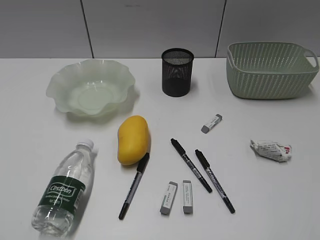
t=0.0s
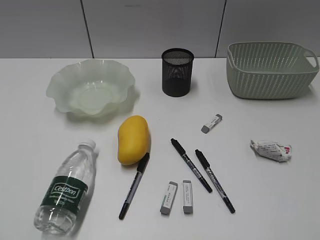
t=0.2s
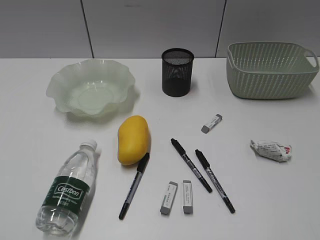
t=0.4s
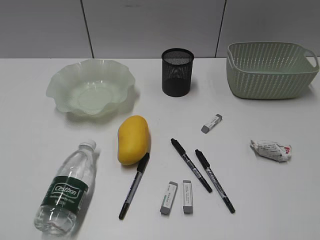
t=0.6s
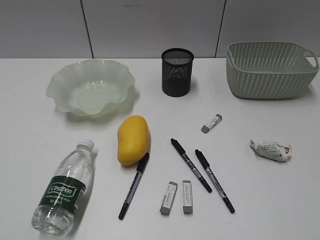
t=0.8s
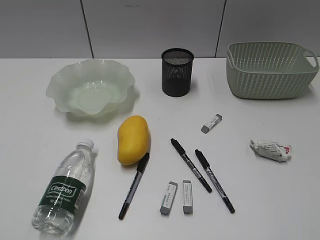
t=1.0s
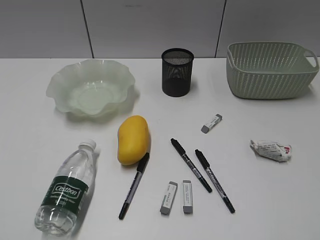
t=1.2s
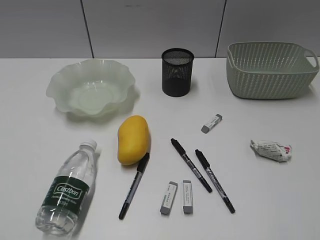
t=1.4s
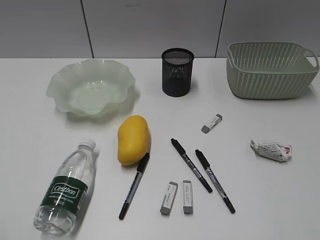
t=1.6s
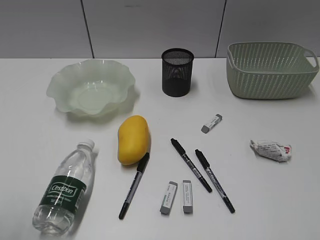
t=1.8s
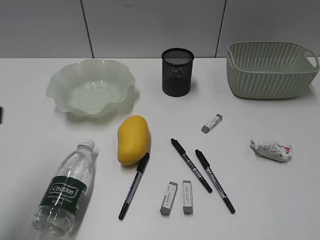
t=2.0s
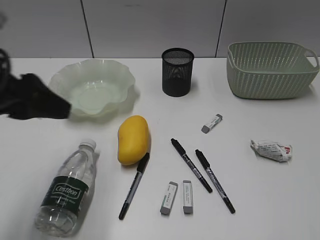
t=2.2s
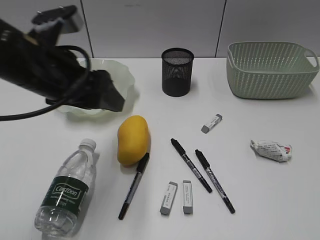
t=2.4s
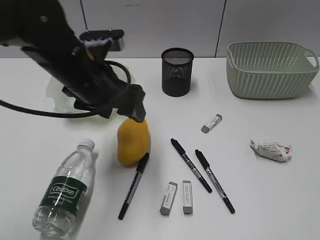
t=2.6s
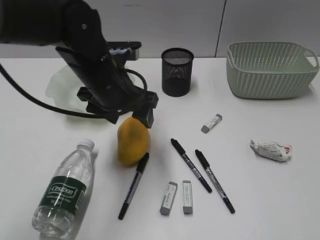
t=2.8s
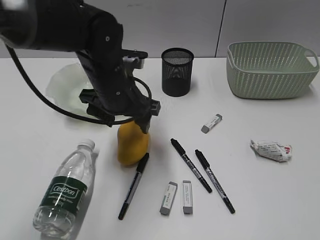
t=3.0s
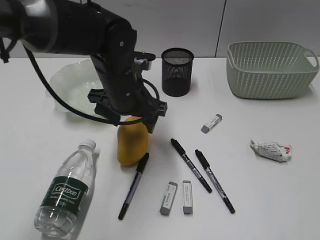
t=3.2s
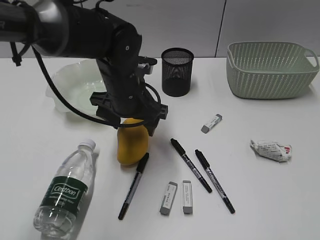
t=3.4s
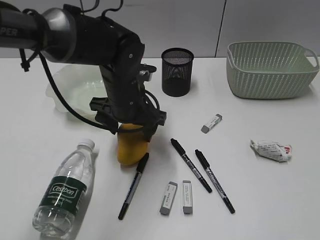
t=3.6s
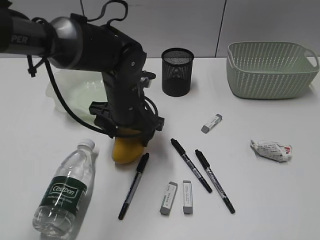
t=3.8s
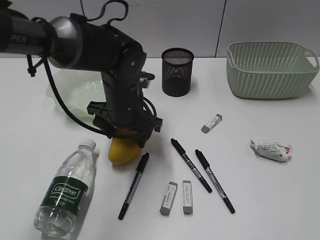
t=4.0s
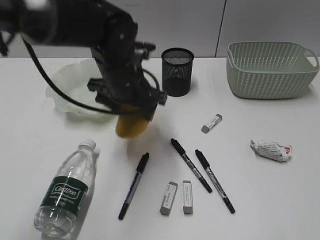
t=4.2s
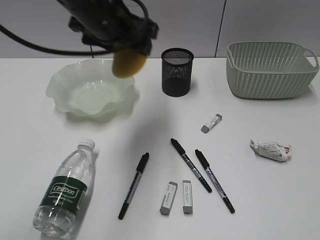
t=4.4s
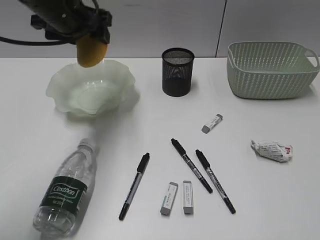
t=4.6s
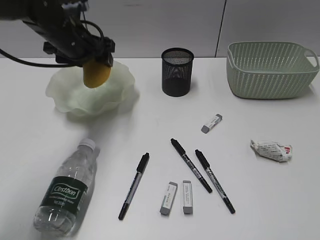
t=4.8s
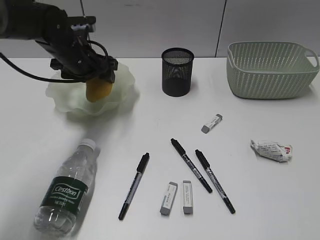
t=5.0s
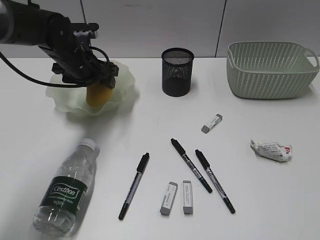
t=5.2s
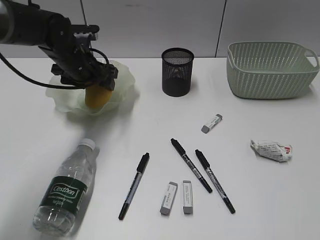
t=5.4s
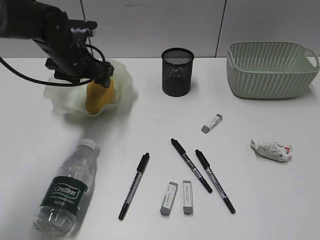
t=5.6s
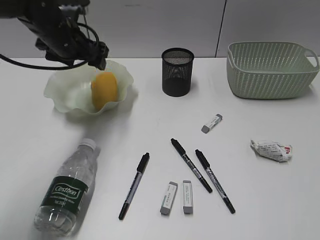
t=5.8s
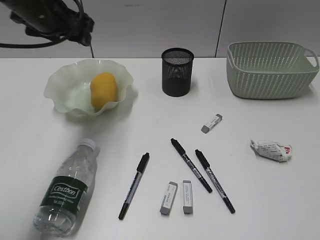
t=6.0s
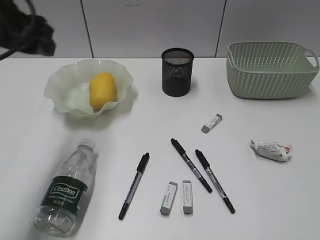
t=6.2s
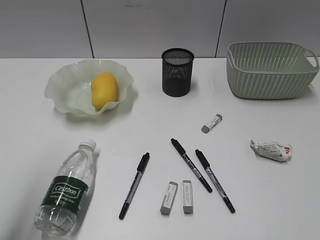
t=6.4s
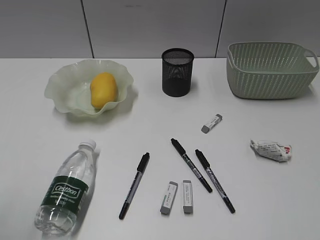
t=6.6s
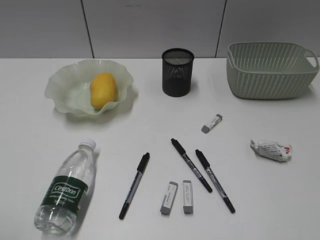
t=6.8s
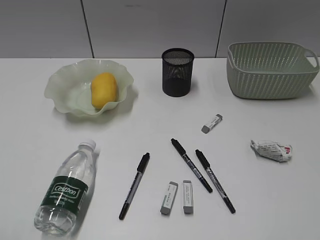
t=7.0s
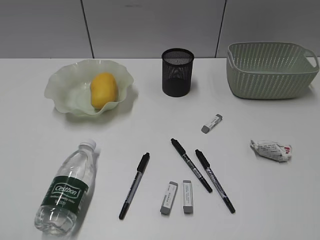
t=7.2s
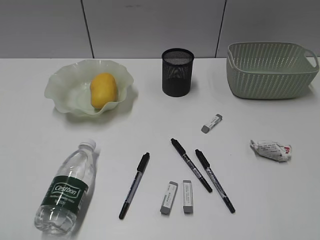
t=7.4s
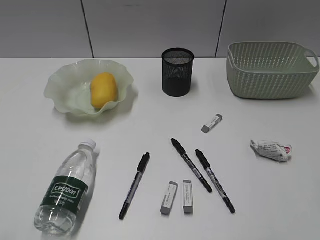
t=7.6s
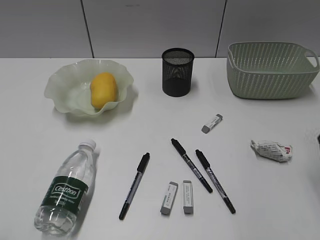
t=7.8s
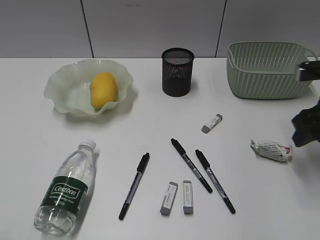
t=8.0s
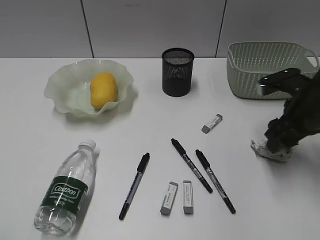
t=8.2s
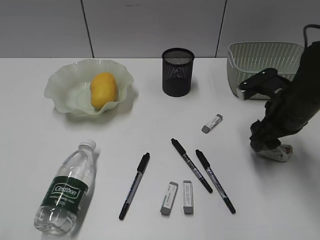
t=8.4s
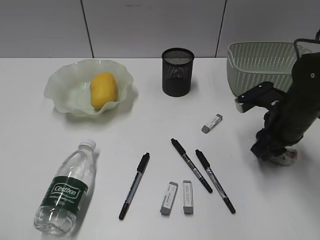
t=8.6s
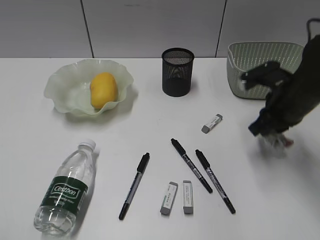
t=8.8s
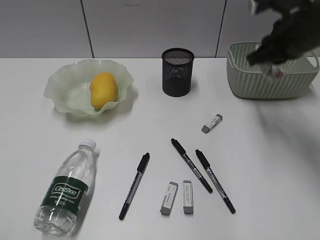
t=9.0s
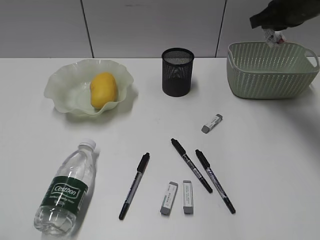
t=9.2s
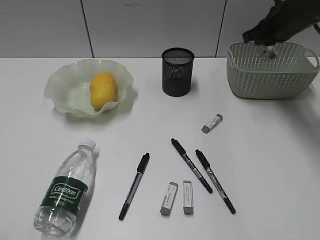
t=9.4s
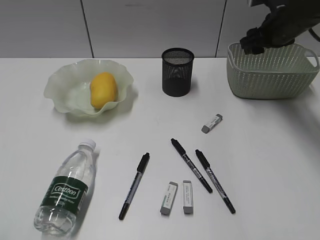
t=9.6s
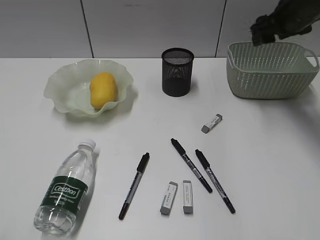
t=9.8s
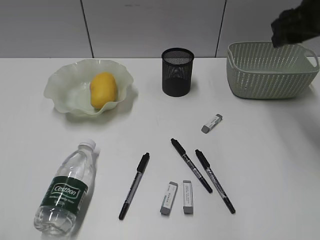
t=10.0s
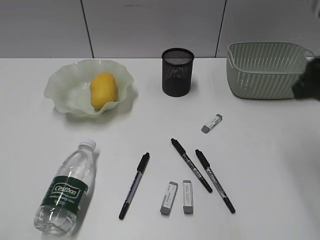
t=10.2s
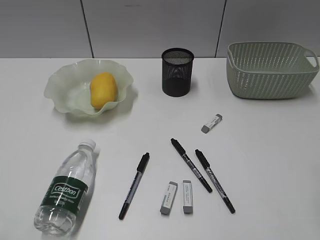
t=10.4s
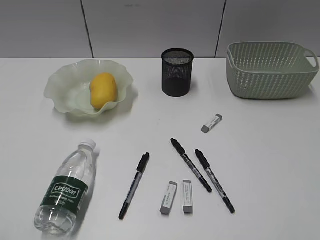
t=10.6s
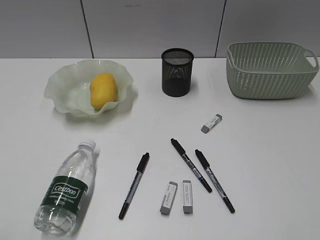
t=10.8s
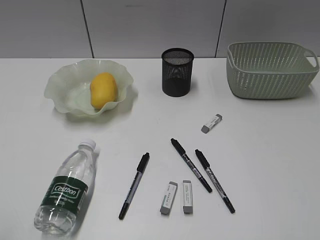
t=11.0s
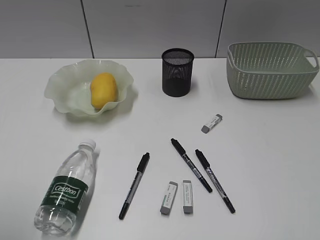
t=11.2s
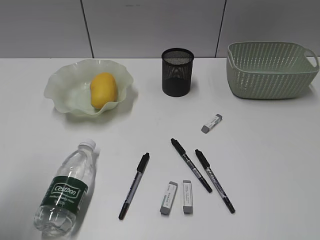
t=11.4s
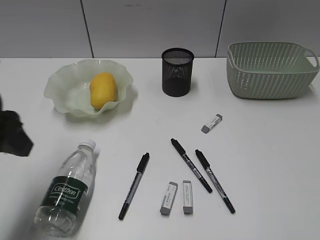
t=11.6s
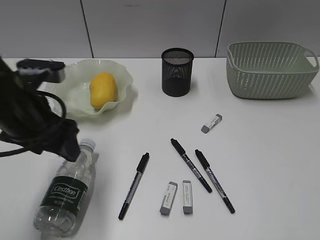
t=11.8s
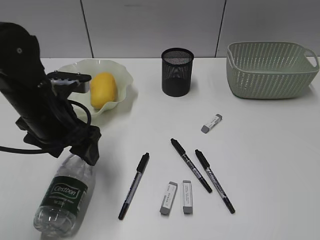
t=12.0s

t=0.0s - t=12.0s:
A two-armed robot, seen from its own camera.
Step, t=1.6s - t=3.8s: Grasp the mango with left gripper.
Step, t=4.0s - t=5.8s: Place the mango in the plate with left gripper.
Step, t=6.0s - t=8.6s: Grasp the waste paper with right gripper.
Step, t=8.8s - t=9.6s: Place the waste paper in the basket with right gripper.
t=1.6s - t=3.0s: The left gripper heads forward and to the right, covering about 40 cm, and opens.
t=3.0s - t=4.4s: The left gripper shifts roughly 10 cm upward.
t=4.4s - t=6.0s: The left gripper moves to the left, about 10 cm, and travels downward and back again, about 15 cm each way.
t=6.0s - t=7.6s: The right gripper heads forward, covering about 15 cm. Meanwhile the left gripper heads backward, covering approximately 40 cm.
t=7.6s - t=9.0s: The right gripper heads forward, covering roughly 20 cm, and closes its fingers.
t=9.0s - t=10.4s: The right gripper travels backward by about 20 cm, and opens up.
t=10.4s - t=12.0s: The left gripper is displaced forward and to the right by approximately 35 cm, and opens, while the right gripper heads backward, covering roughly 15 cm.

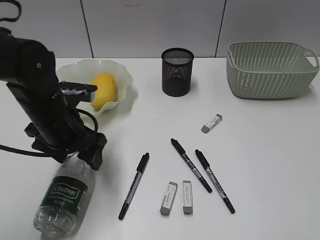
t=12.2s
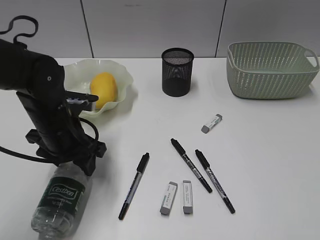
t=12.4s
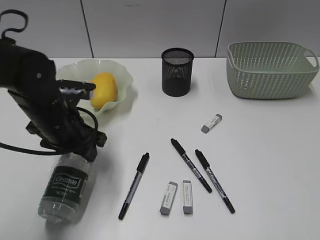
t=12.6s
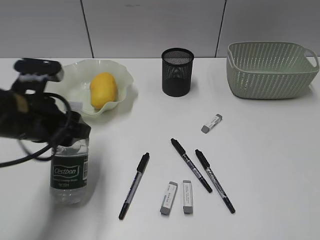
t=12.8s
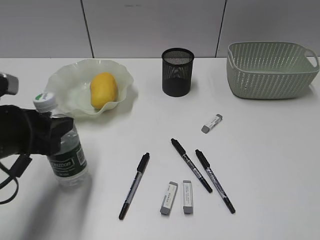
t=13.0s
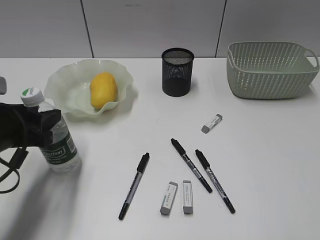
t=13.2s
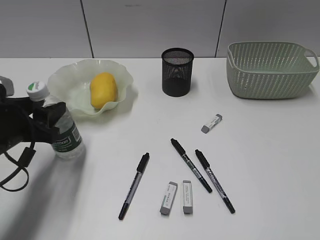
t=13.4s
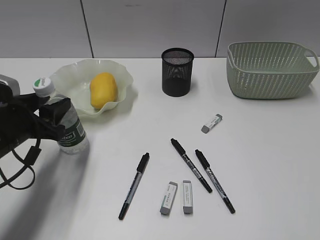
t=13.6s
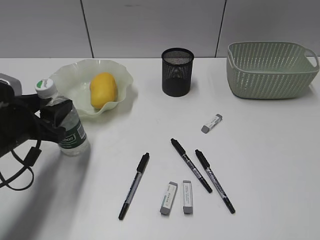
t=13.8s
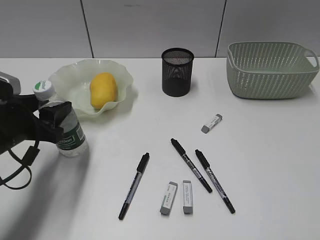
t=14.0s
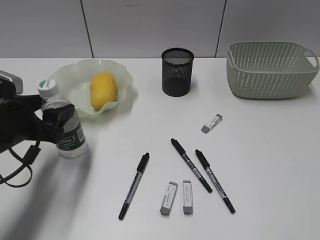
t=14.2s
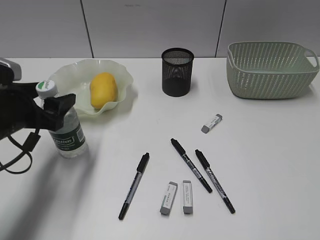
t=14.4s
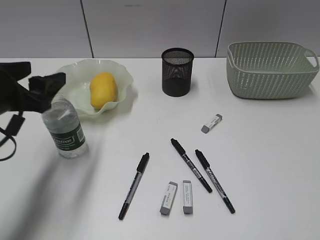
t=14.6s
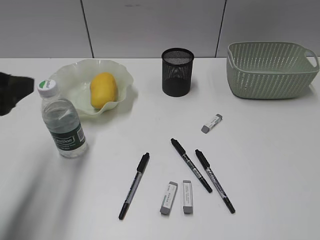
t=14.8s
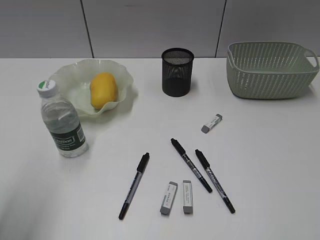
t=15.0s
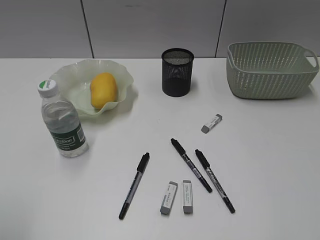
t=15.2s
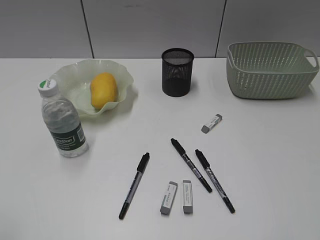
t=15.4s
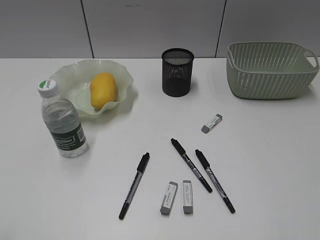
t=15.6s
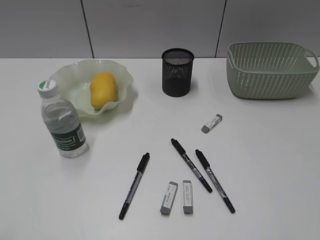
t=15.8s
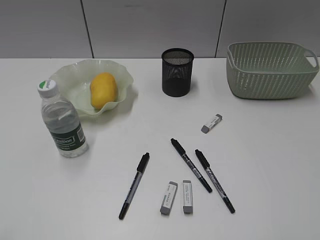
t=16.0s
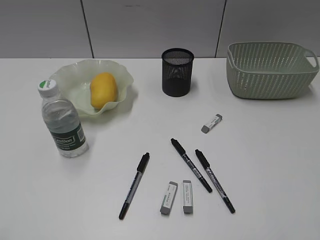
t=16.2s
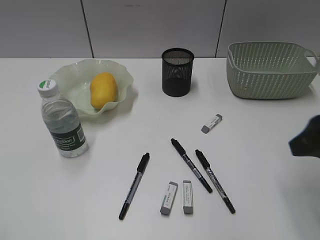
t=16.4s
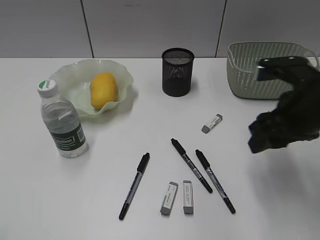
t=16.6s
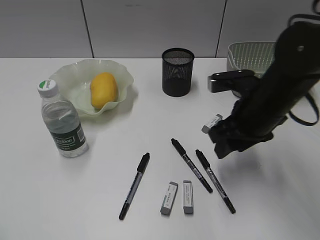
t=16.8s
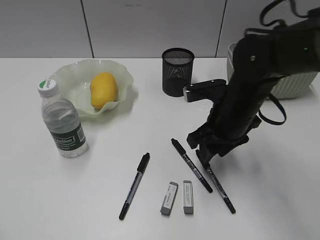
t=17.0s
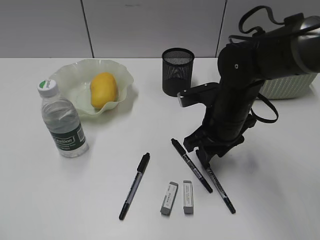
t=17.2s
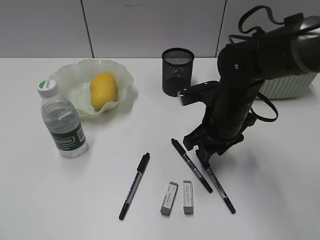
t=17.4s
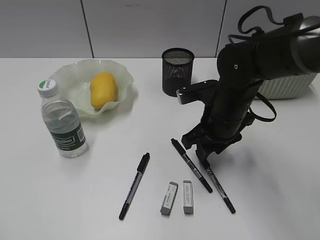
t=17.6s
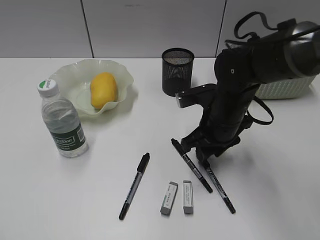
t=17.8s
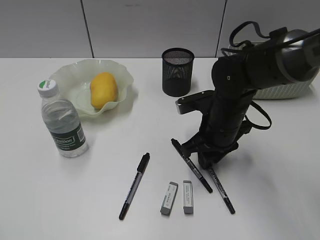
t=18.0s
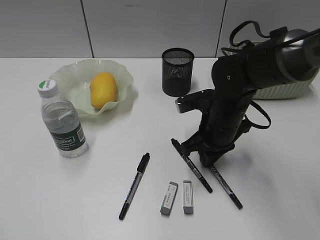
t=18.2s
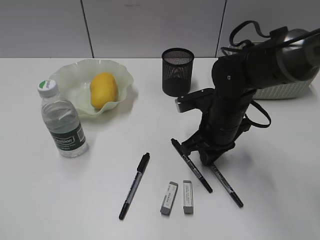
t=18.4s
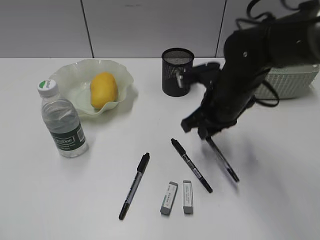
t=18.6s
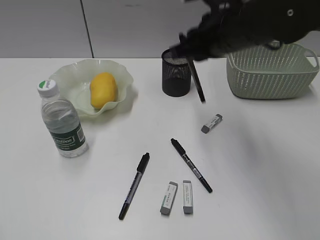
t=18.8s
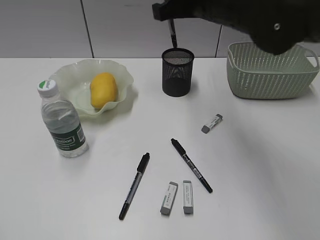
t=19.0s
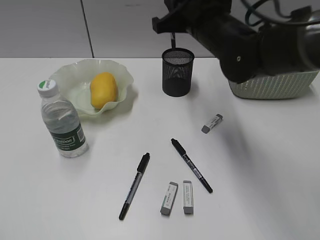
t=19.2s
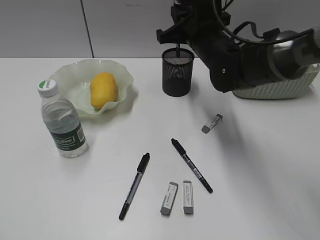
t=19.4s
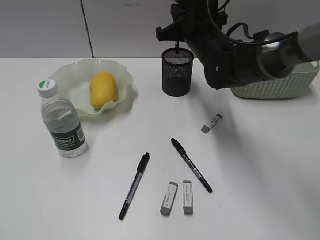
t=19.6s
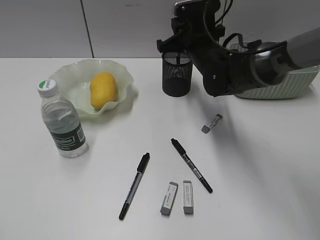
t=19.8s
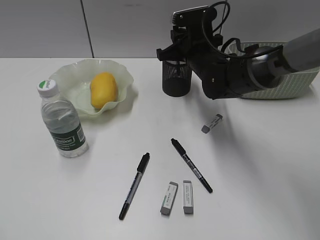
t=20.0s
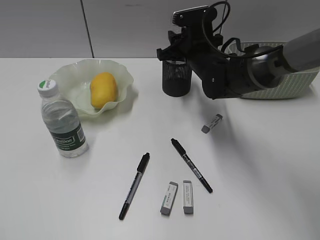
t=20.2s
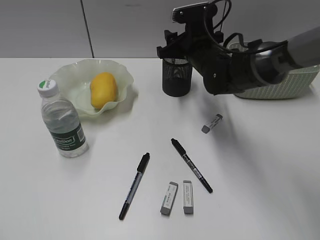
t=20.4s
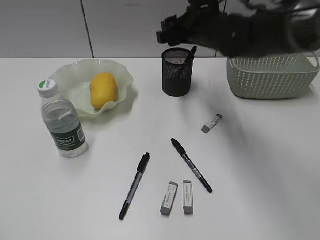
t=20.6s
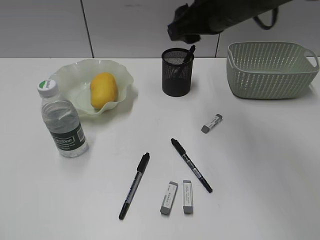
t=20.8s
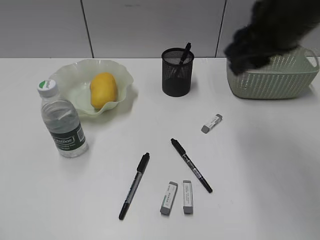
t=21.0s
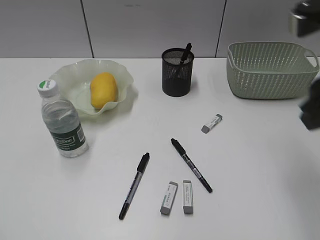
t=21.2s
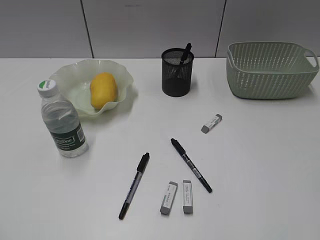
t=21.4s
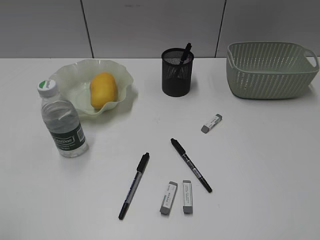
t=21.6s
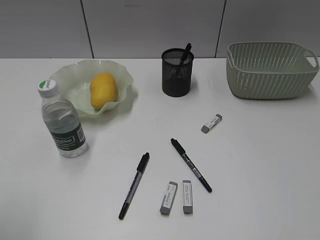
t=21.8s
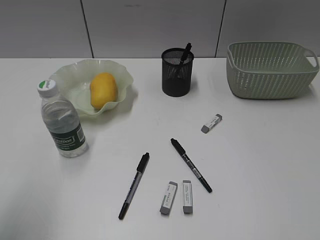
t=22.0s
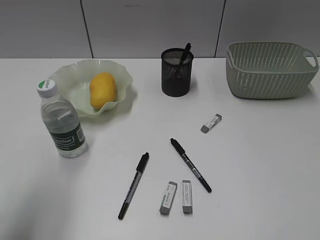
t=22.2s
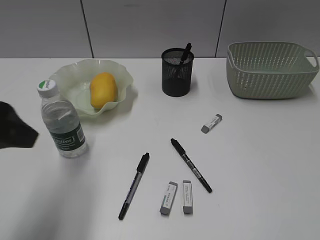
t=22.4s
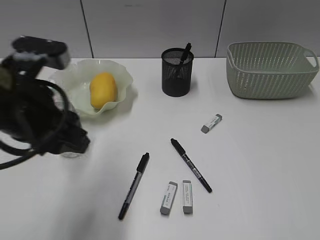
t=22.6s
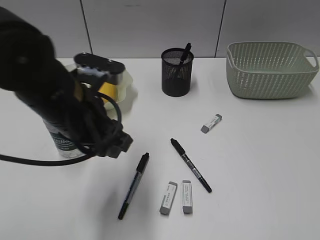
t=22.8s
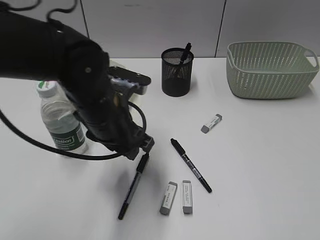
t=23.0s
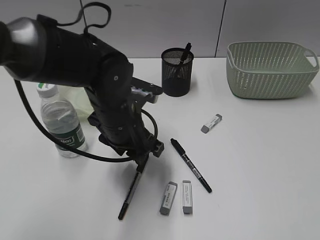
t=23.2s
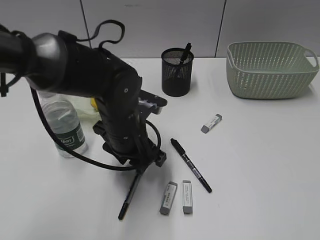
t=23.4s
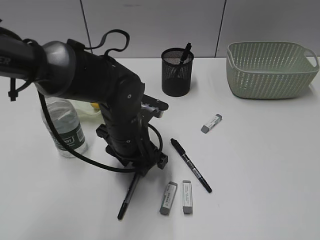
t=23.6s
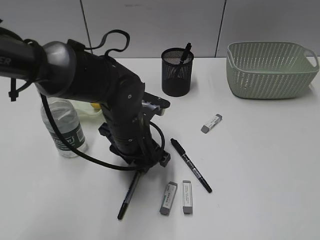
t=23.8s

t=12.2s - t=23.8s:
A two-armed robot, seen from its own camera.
Step, t=12.6s - t=14.4s: Stand the bottle with left gripper.
Step, t=14.6s - t=18.2s: Grasp the black pen with right gripper.
Step, t=18.4s - t=20.4s: Place the black pen in pen holder with right gripper.
t=12.2s - t=13.6s: The left gripper travels to the left by approximately 10 cm, and closes.
t=13.6s - t=15.0s: The left gripper is displaced upward and backward by approximately 20 cm.
t=15.0s - t=16.6s: The left gripper goes about 15 cm backward; the right gripper heads forward and to the left, covering roughly 30 cm, and opens up.
t=16.6s - t=18.0s: The right gripper moves downward, to the left and forward, some 15 cm, and closes.
t=18.0s - t=19.4s: The right gripper travels forward and upward by approximately 15 cm, and closes its fingers.
t=19.4s - t=21.0s: The right gripper goes some 20 cm backward, upward and to the right, and opens up.
t=21.0s - t=22.4s: The left gripper travels forward and to the right by roughly 20 cm; the right gripper moves backward and to the right, roughly 35 cm.
t=22.4s - t=23.8s: The left gripper moves to the right, downward and forward, approximately 25 cm.
